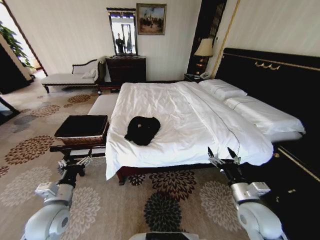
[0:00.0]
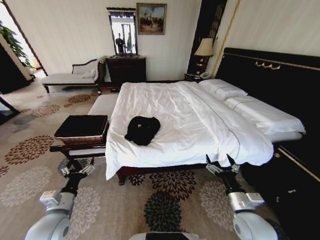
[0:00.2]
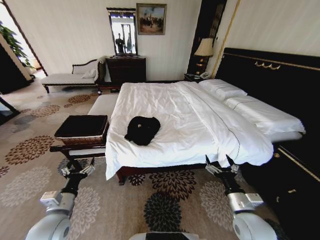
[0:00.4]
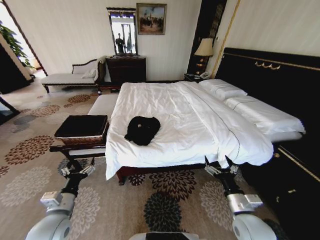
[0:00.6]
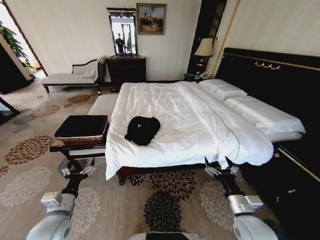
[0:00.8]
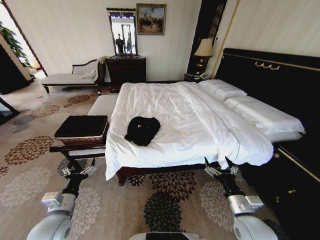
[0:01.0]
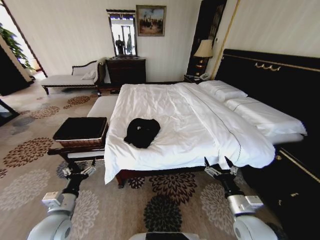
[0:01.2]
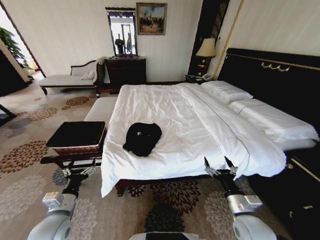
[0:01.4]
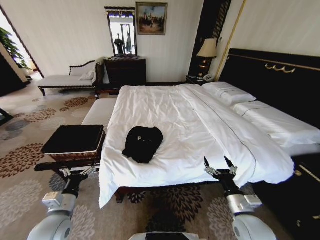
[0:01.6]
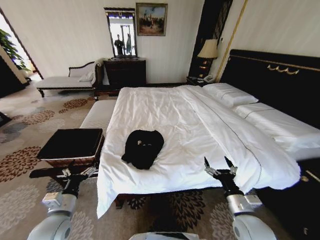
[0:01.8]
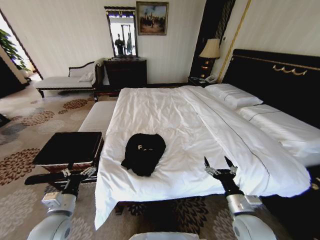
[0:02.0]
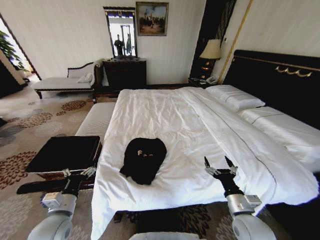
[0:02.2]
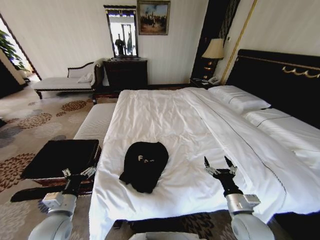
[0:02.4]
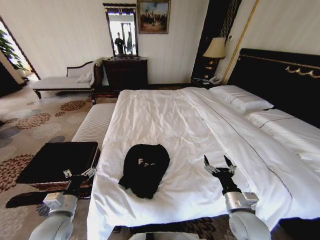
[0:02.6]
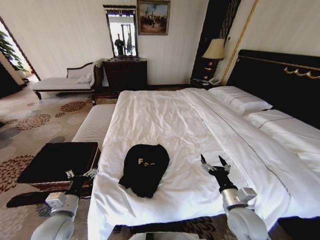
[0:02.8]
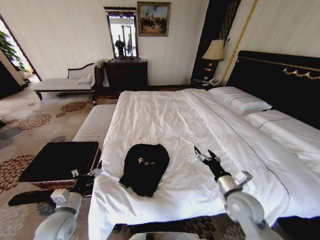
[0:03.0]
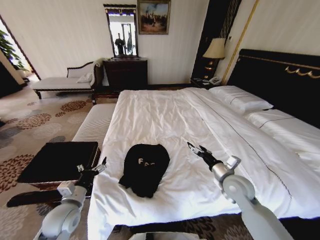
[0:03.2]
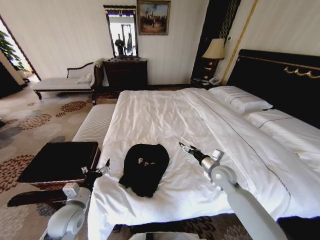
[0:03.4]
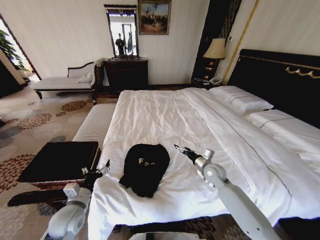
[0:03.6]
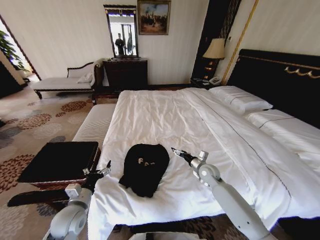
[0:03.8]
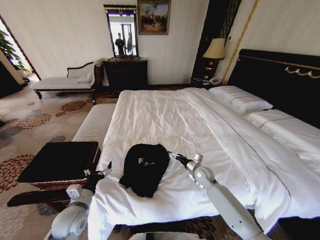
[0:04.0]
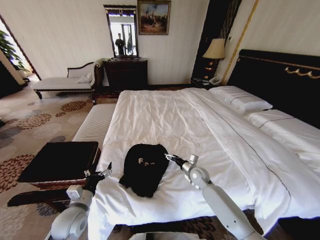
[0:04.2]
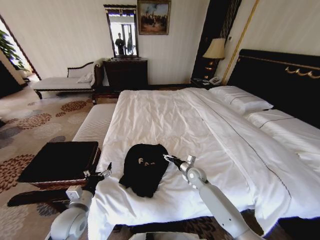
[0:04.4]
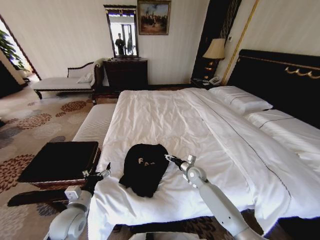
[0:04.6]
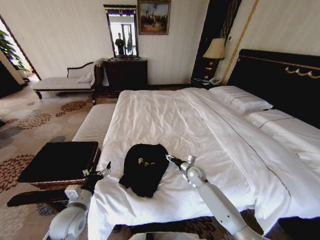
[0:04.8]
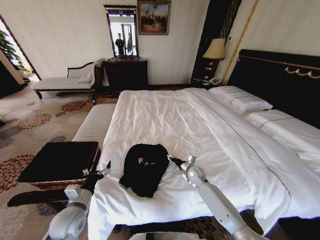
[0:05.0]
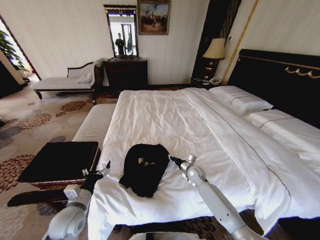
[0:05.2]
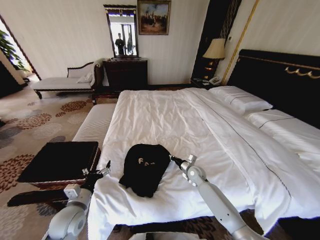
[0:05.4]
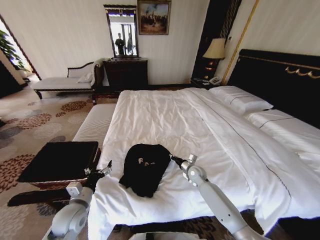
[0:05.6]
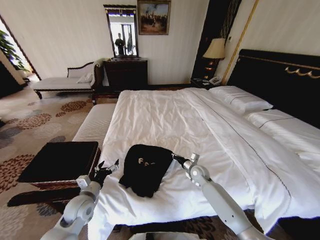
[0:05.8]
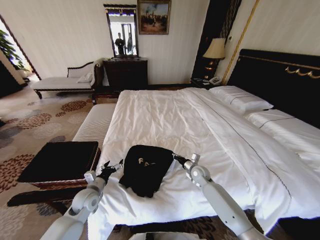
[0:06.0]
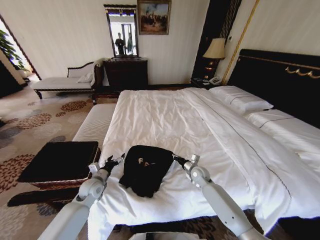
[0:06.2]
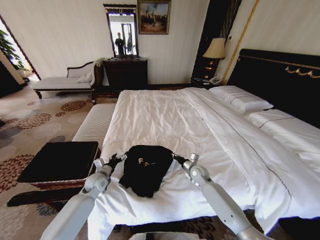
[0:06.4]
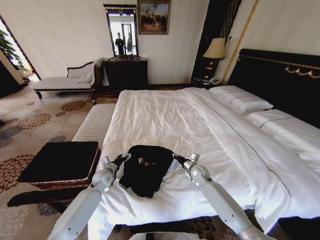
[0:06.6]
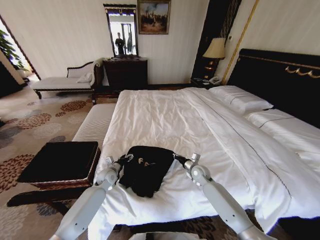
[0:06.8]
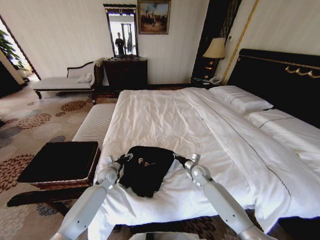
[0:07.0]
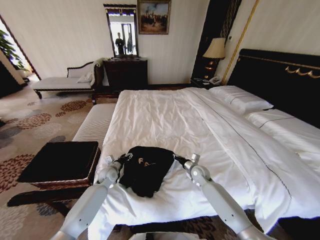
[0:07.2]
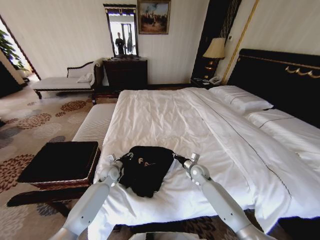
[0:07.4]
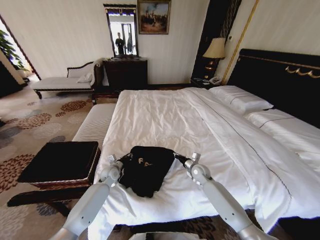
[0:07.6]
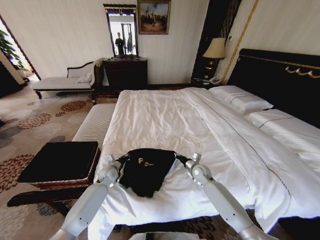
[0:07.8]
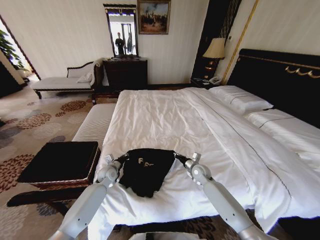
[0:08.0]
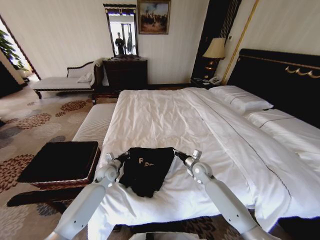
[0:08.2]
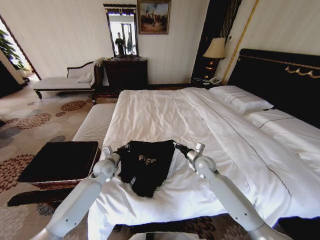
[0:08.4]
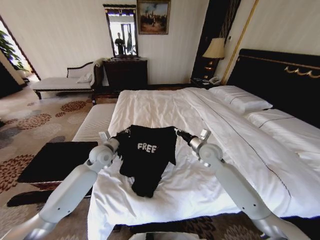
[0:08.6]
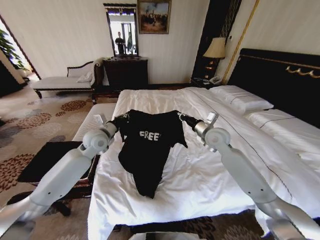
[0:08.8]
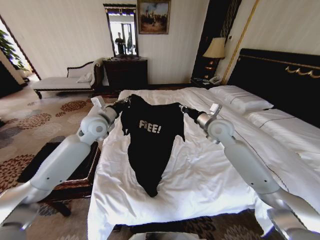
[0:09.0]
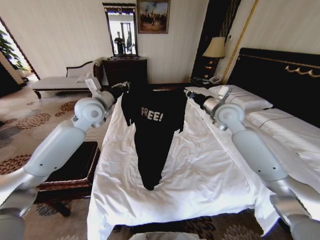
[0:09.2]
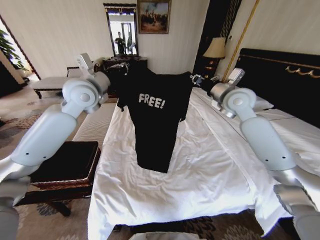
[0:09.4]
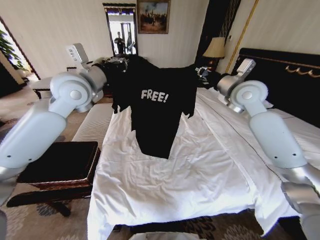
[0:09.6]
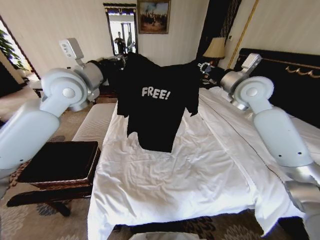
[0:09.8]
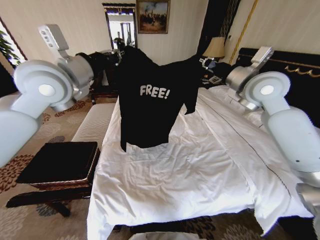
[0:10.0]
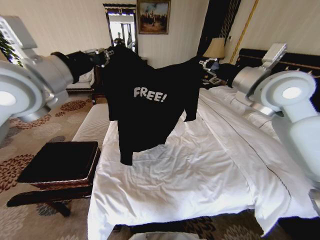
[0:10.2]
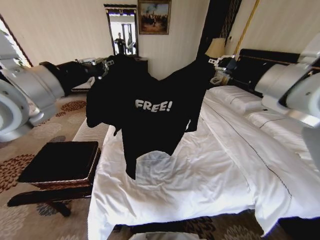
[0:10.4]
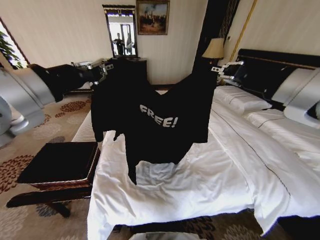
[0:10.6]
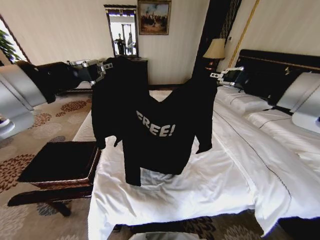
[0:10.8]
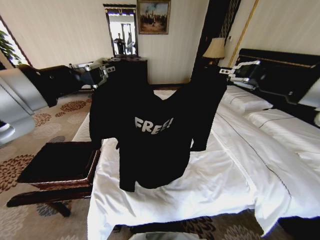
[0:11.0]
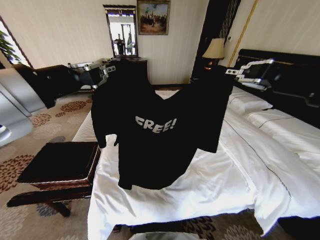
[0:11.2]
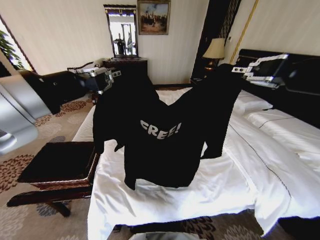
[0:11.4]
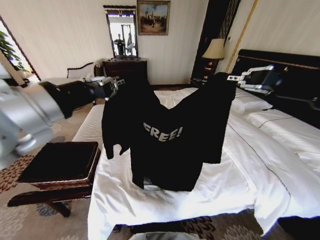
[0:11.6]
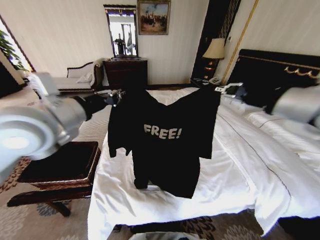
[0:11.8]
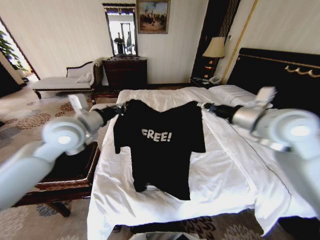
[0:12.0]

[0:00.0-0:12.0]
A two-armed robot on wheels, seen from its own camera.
Task of the whole recording: Fold the clothes on the bed and place them into the basket.
1.6 to 3.0 s: The right gripper is displaced forward by roughly 5 cm.
3.0 to 4.4 s: The right gripper travels forward, downward and to the left by approximately 25 cm.
4.4 to 6.0 s: The left gripper is displaced forward by about 10 cm. Meanwhile the right gripper closes up.
6.0 to 7.6 s: The left gripper travels forward by approximately 15 cm, and closes up.
7.6 to 9.0 s: The grippers both shift upward by about 30 cm.
9.0 to 10.4 s: The two grippers go some 25 cm upward and backward.
10.4 to 12.0 s: The right gripper travels downward by approximately 10 cm, and travels backward and back again, approximately 15 cm each way. Meanwhile the left gripper travels downward and forward by about 15 cm.

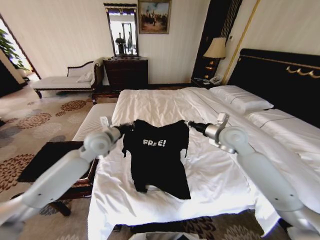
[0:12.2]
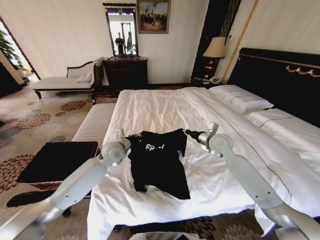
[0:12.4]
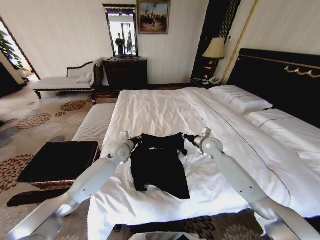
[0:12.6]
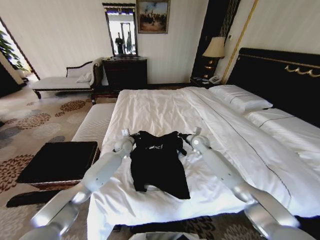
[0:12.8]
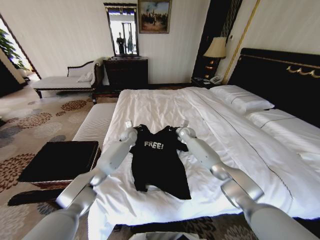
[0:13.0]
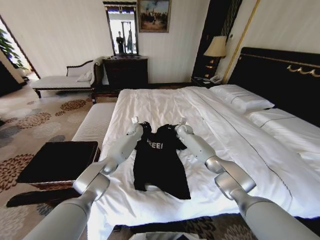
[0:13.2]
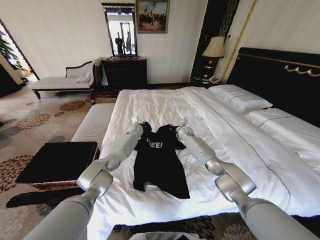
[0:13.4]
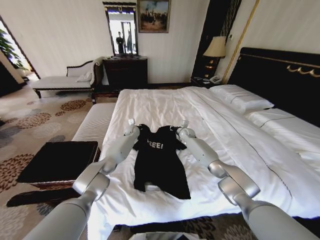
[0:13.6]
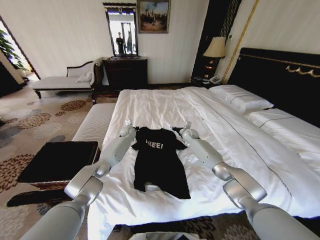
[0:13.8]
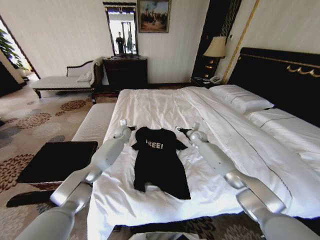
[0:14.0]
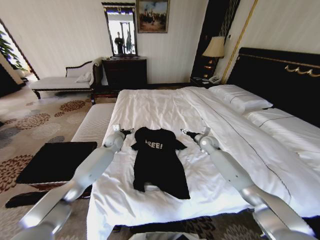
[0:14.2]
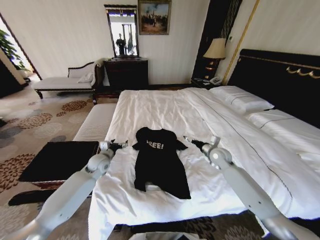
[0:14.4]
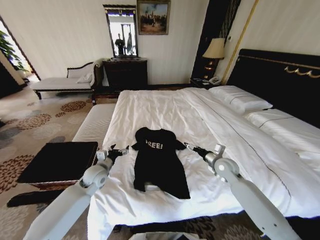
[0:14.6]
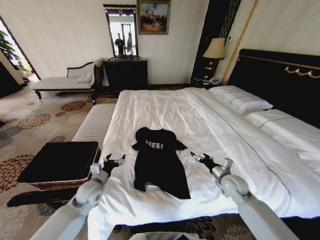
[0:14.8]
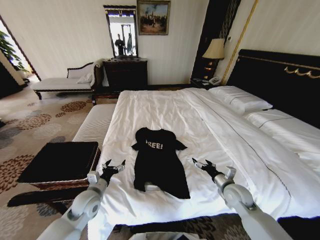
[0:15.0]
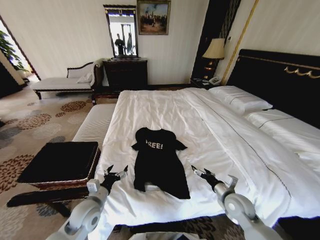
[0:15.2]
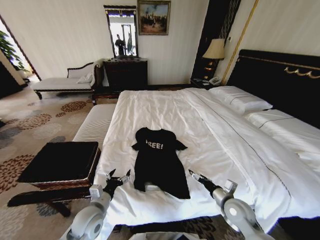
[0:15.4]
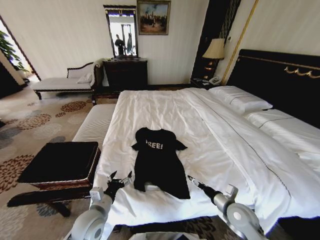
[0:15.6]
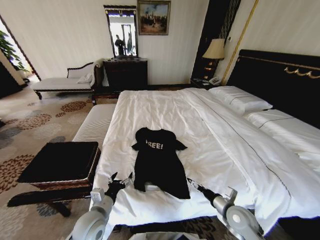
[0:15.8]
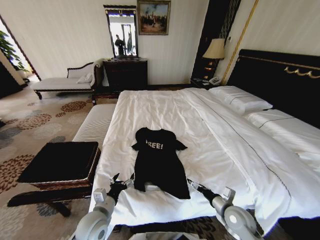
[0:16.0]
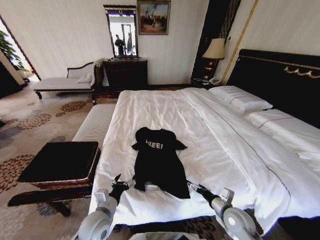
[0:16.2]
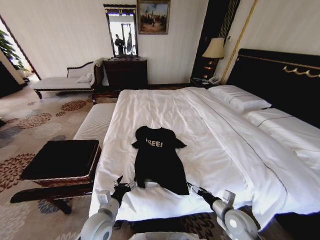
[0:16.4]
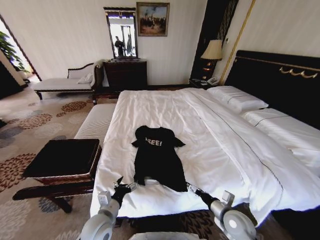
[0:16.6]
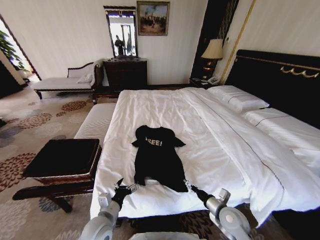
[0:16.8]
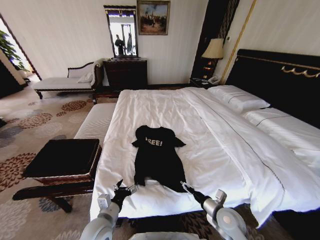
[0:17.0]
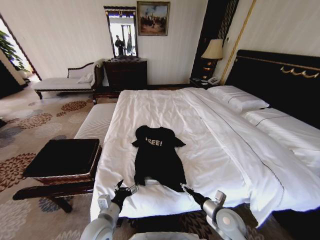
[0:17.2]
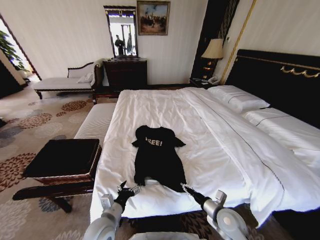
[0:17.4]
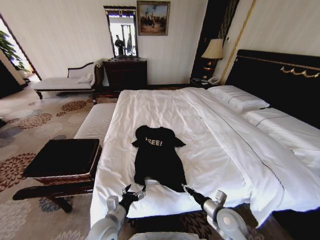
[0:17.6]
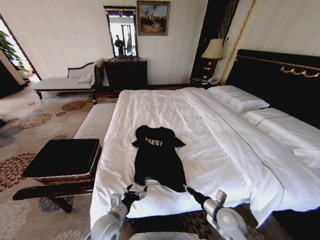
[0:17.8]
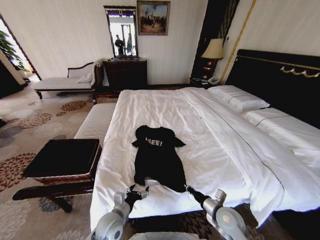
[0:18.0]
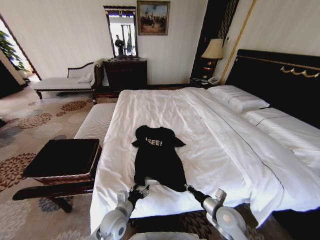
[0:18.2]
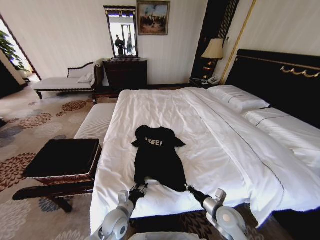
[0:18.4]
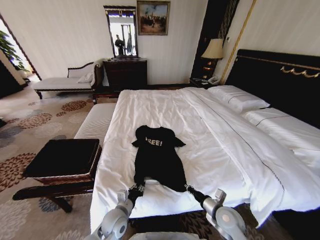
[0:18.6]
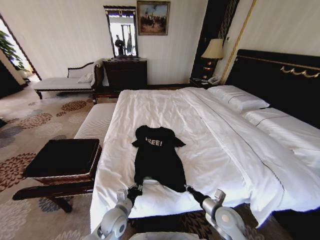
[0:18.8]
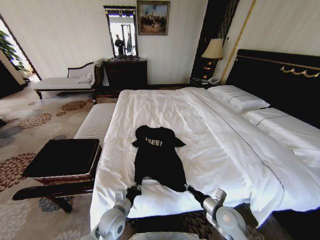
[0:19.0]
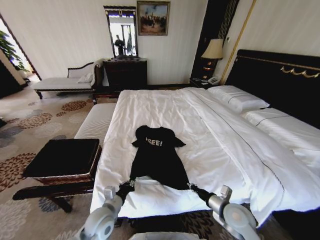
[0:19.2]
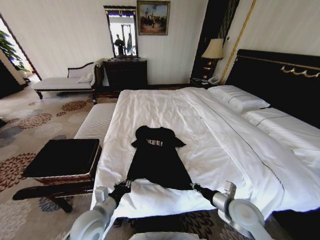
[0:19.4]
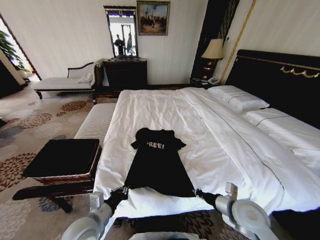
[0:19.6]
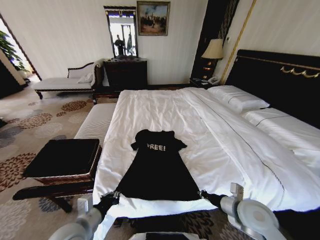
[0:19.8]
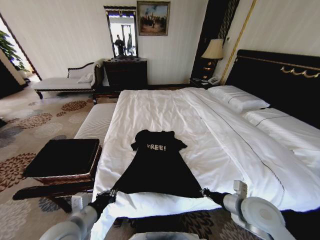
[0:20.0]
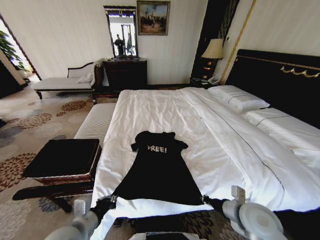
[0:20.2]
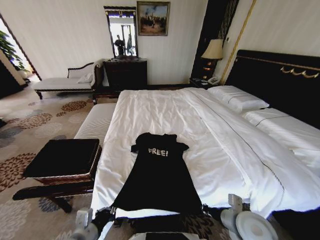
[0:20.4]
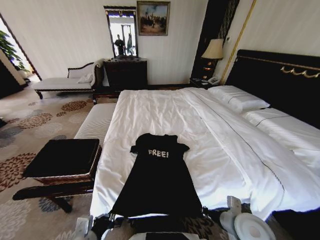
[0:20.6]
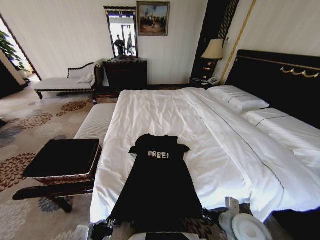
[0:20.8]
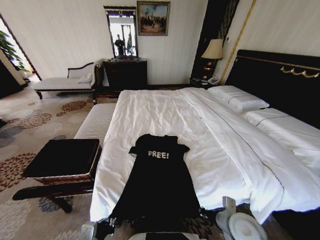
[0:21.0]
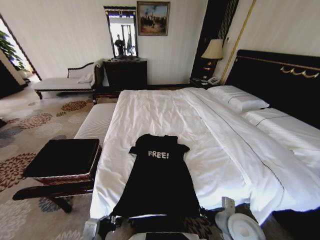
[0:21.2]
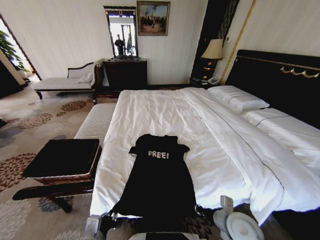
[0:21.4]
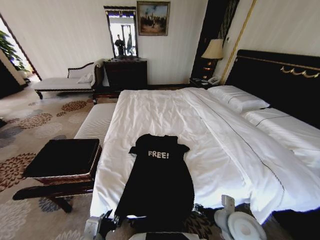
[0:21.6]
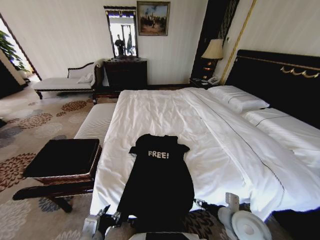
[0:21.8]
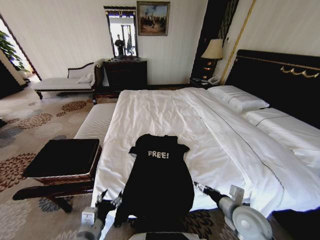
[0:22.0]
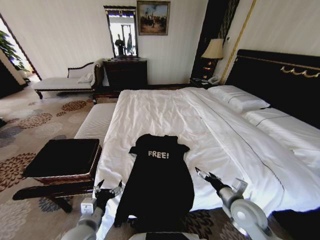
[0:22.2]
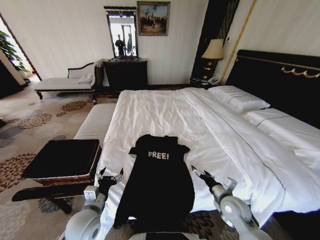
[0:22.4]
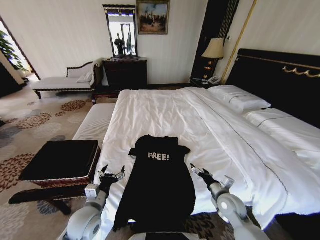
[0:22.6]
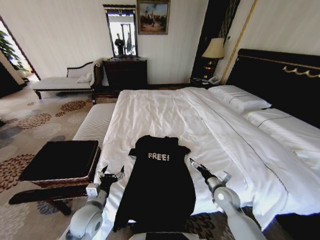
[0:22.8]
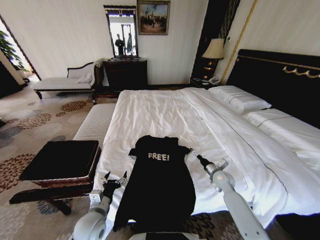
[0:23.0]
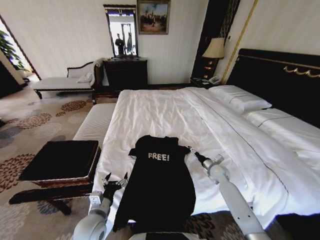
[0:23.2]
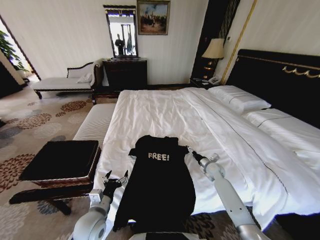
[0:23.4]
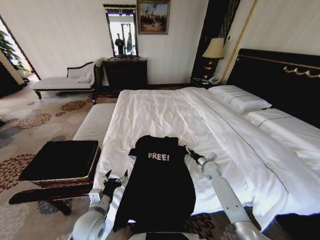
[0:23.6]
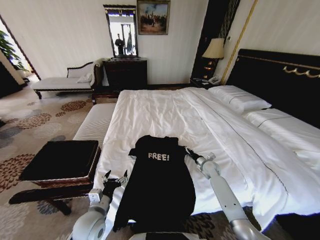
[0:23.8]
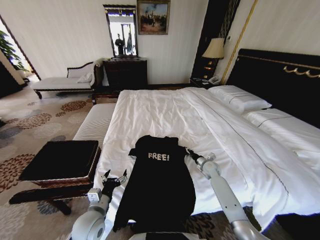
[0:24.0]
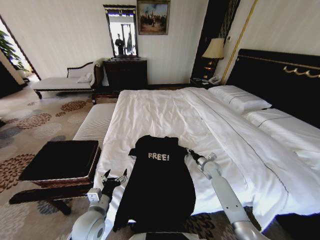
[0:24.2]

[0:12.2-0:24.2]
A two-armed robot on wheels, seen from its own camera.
Task of the whole recording: Fold the clothes on the bed and place them into the basket.
12.2 to 13.8 s: Both grippers travel together forward and downward, about 25 cm. The right gripper opens.
13.8 to 15.2 s: The two grippers go some 40 cm backward. The left gripper opens up. Meanwhile the right gripper opens.
15.2 to 16.6 s: The right gripper travels backward by about 5 cm. The left gripper heads to the right, covering some 5 cm.
16.6 to 18.2 s: The left gripper is displaced downward by some 5 cm. Meanwhile the right gripper closes its fingers.
18.2 to 19.8 s: The left gripper travels upward, to the left and backward by approximately 15 cm, and closes up. Meanwhile the right gripper travels upward by about 10 cm.
19.8 to 21.2 s: The right gripper moves some 5 cm; the left gripper goes about 5 cm backward.
21.2 to 22.6 s: The grippers both shift forward by approximately 10 cm. The left gripper opens up. The right gripper opens its fingers.
22.6 to 24.2 s: The right gripper shifts about 20 cm forward, and closes up.
